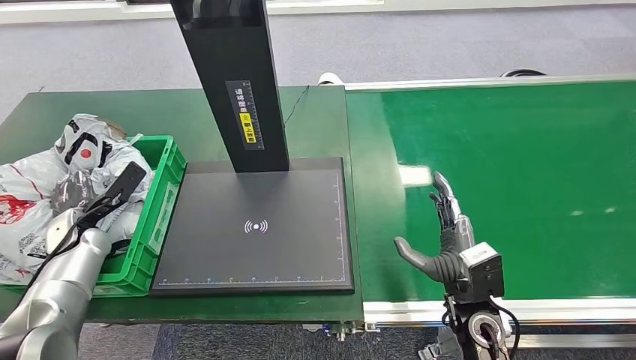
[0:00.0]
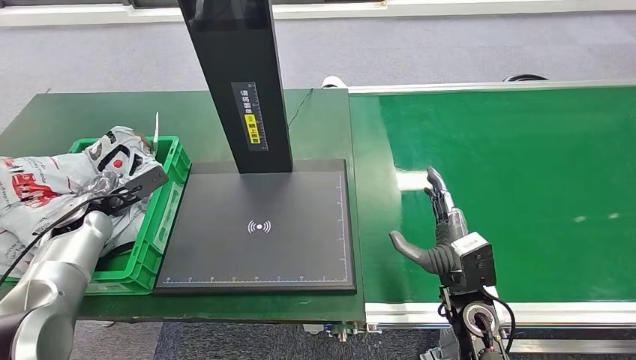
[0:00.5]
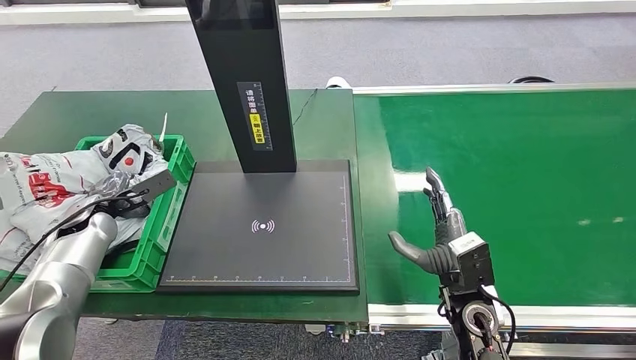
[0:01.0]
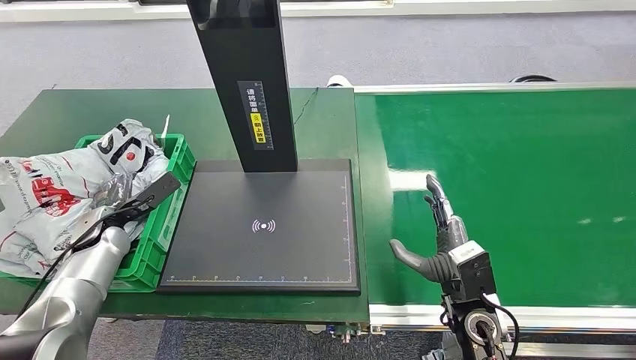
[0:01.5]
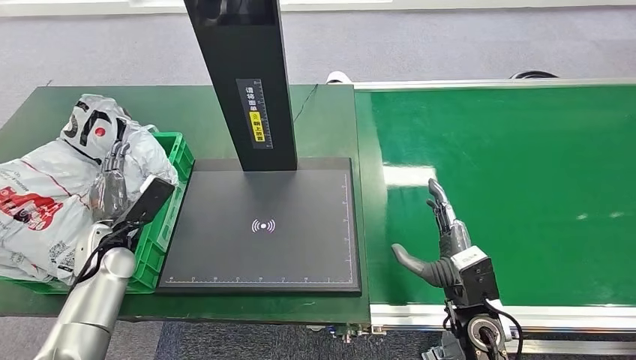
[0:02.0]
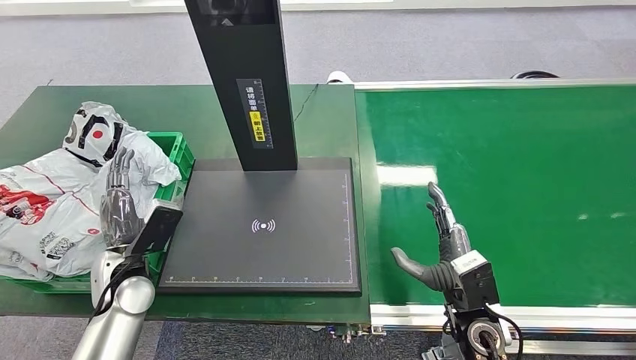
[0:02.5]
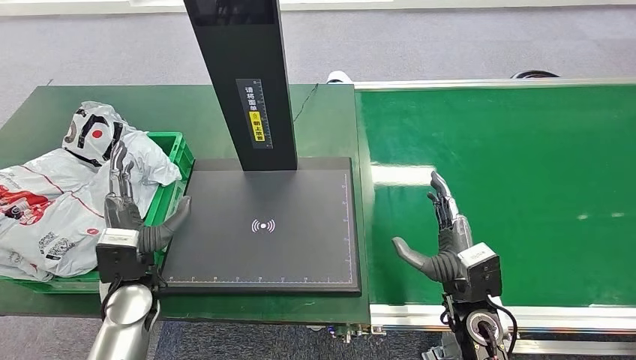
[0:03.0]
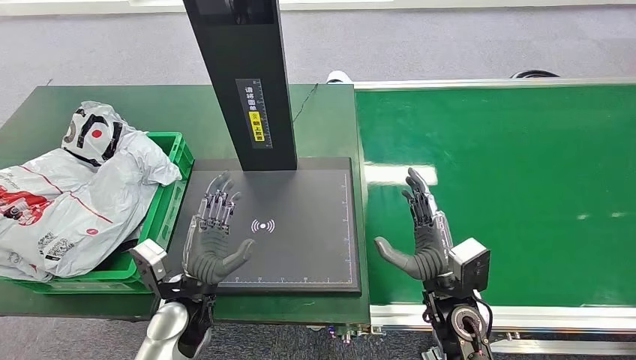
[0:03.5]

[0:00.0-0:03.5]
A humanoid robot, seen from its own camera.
Step, 0:00.0 to 0:03.5: Place the package into the parcel locker.
0:02.0 to 0:03.5: The left hand is displaced to the right and backward by about 20 cm.
